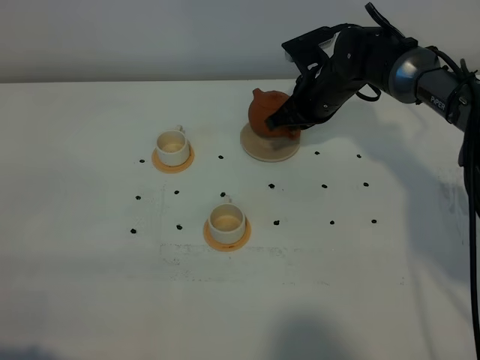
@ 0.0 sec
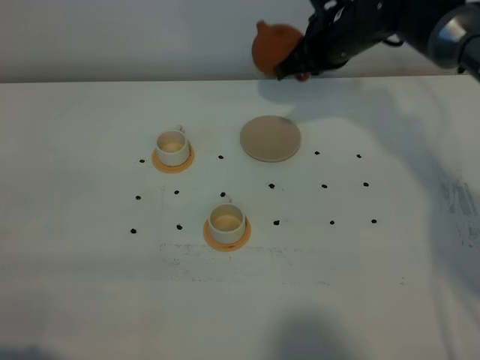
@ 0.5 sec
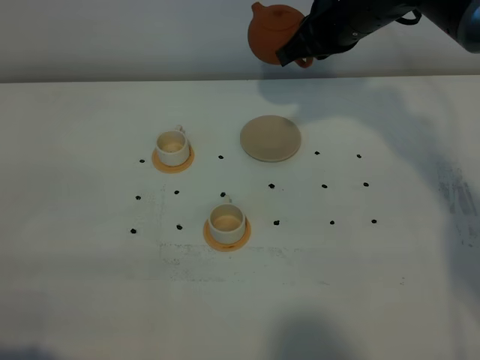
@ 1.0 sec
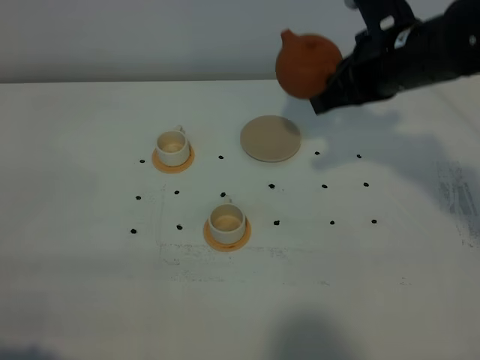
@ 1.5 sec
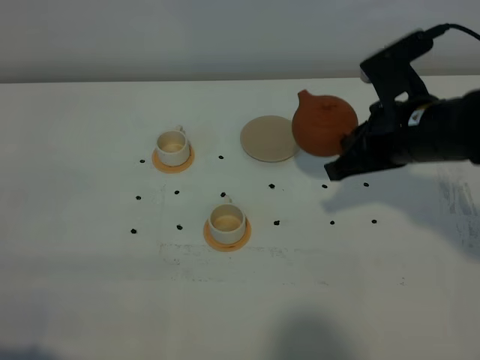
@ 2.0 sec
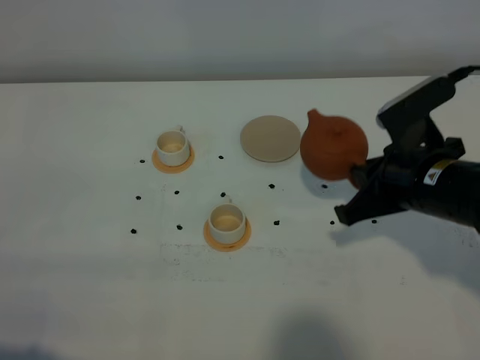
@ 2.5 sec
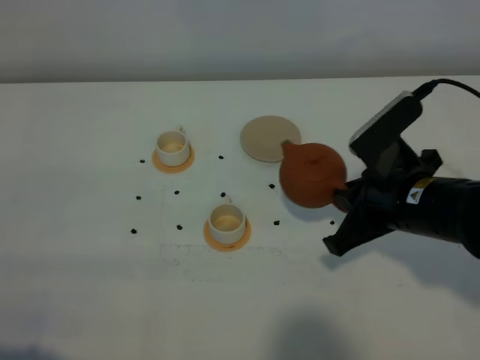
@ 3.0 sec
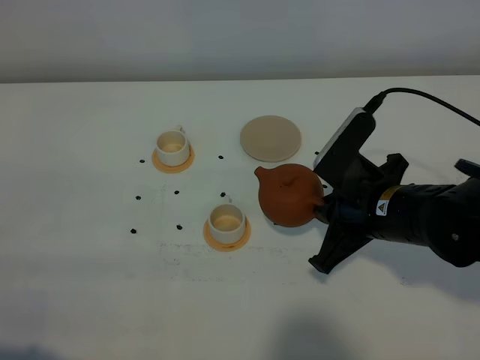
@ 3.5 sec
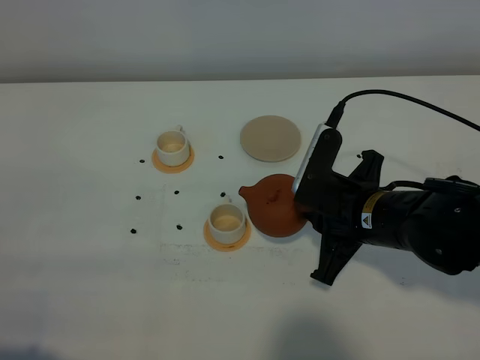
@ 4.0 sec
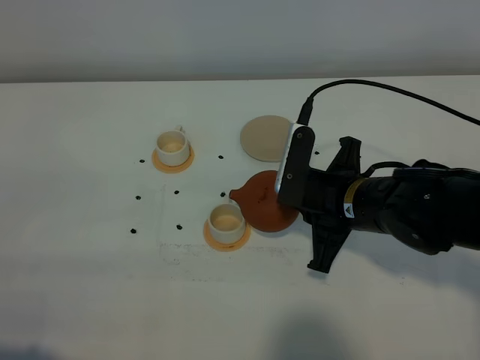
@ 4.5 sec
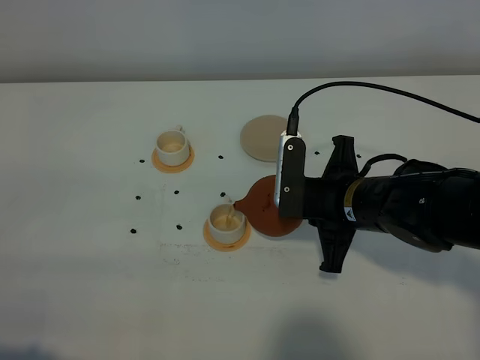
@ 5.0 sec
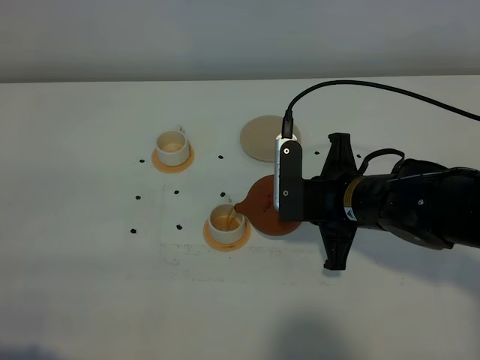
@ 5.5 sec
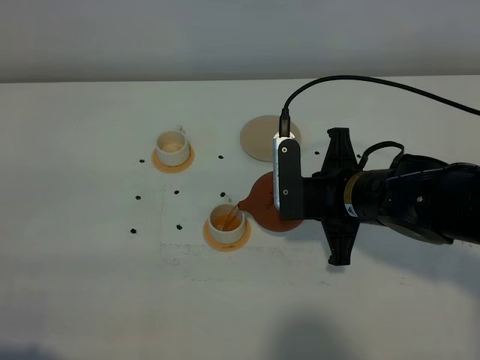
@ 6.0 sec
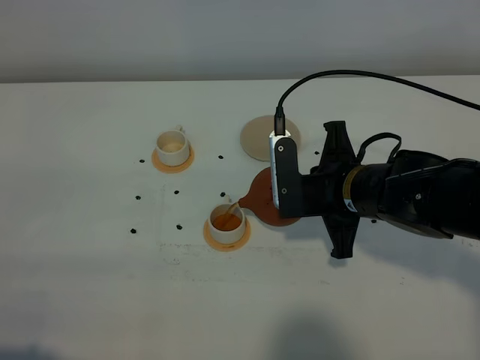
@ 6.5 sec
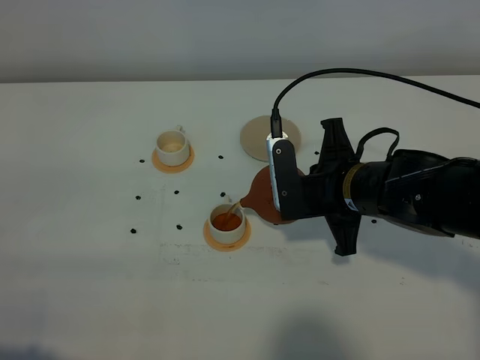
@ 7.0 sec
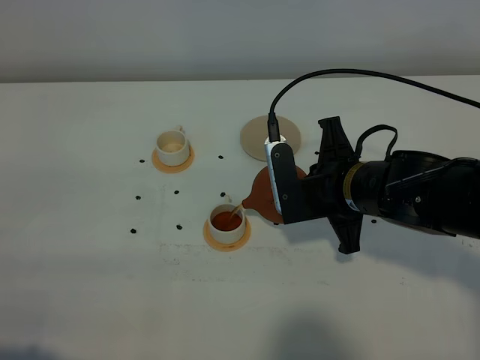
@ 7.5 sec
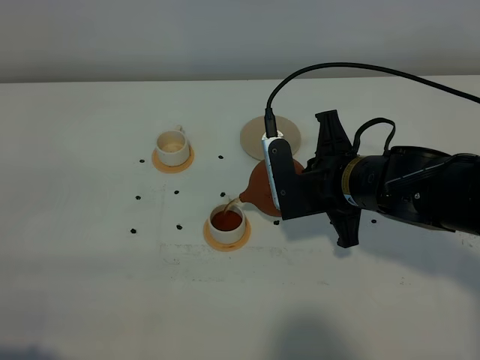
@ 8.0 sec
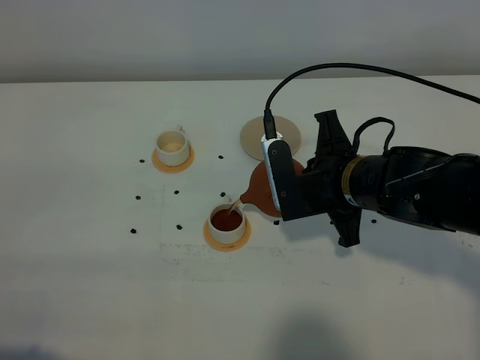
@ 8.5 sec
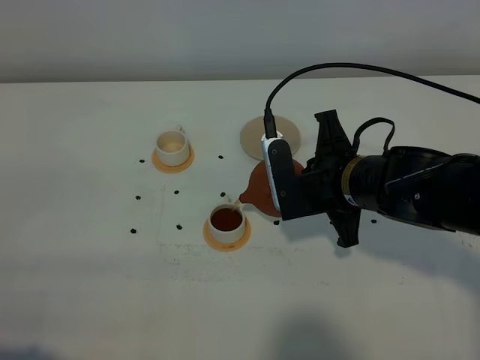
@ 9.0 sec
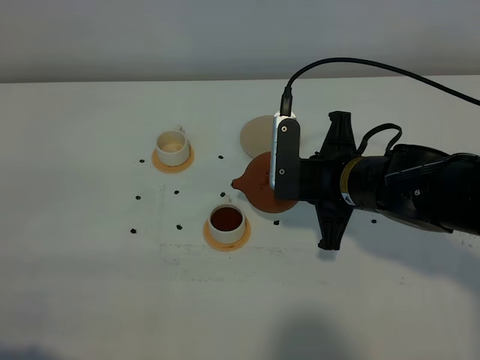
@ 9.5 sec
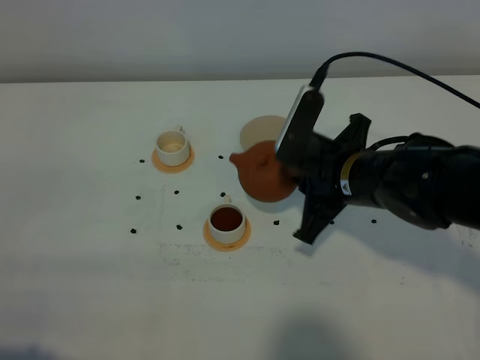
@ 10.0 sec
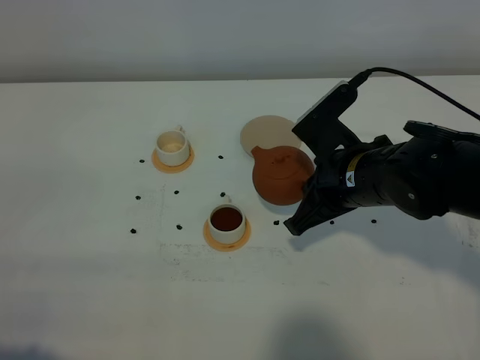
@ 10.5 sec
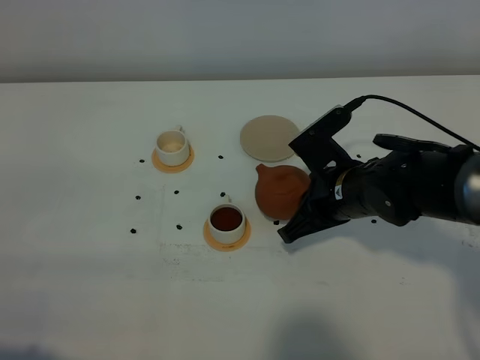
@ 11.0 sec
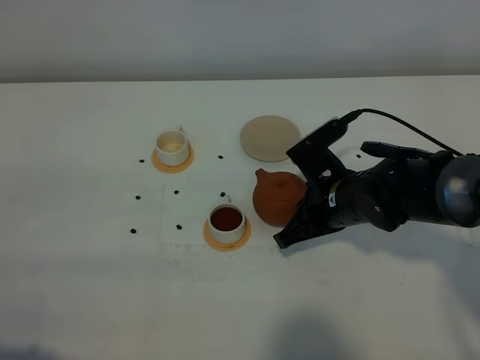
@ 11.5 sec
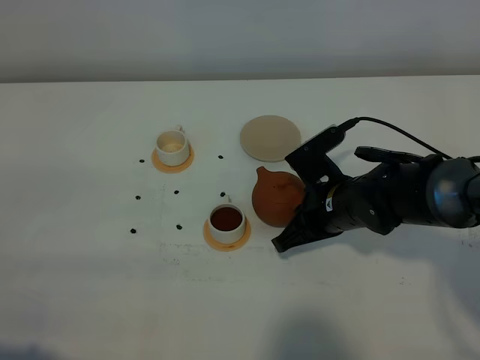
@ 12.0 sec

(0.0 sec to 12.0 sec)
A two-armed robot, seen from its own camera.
Task of the whole recording: grasp the brown teapot and pour the tea into the two white teacups one by one, put the brown teapot back in its original place.
Step, 0.5 sec - 10.0 sec: Pour tea into the teacup with the right gripper.
0.0 sec - 2.0 sec: The right gripper is displaced backward, upward and to the right by approximately 20 cm.
2.0 sec - 4.0 sec: The right gripper heads downward and backward, covering about 10 cm.
6.0 sec - 8.0 sec: The grippers stay close to where they were, moving slightly.
10.0 sec - 12.0 sec: The right gripper is displaced downward by some 10 cm.

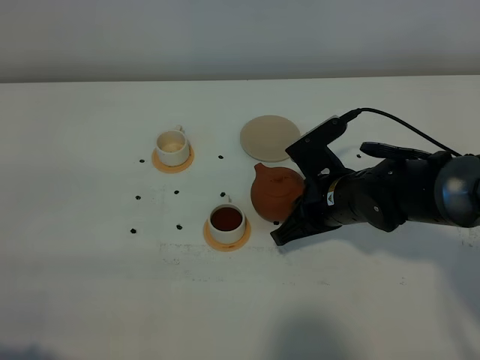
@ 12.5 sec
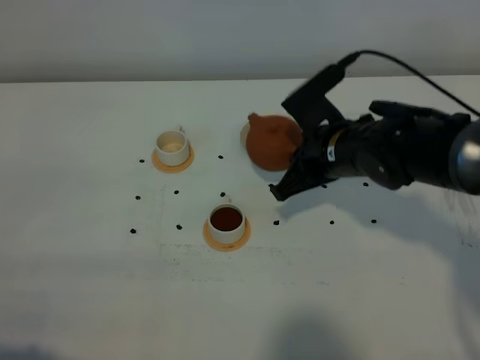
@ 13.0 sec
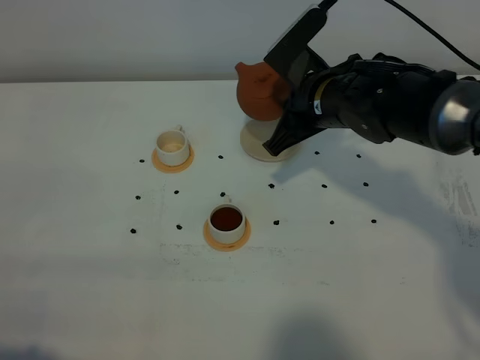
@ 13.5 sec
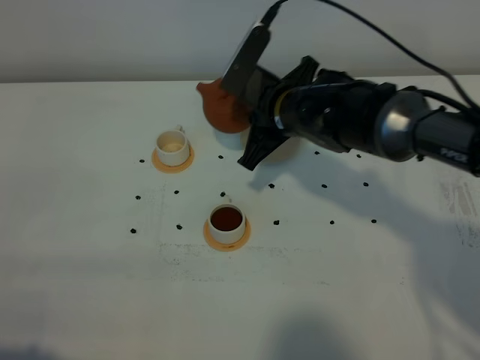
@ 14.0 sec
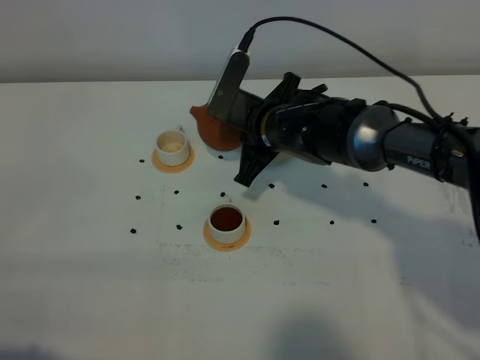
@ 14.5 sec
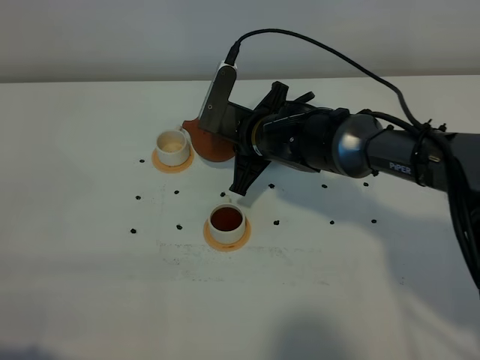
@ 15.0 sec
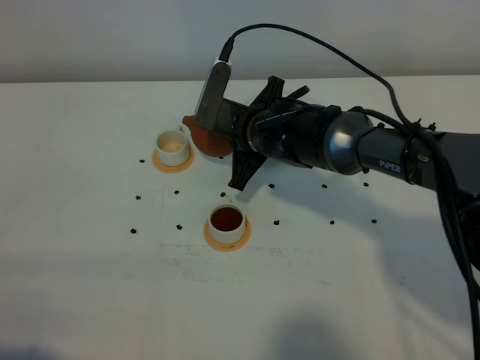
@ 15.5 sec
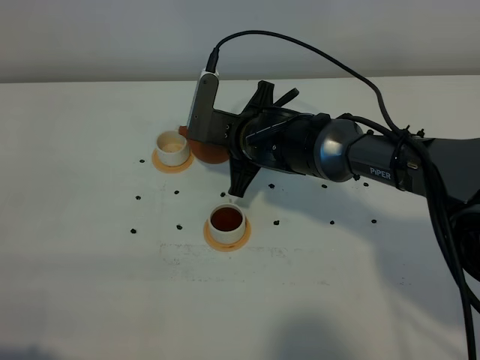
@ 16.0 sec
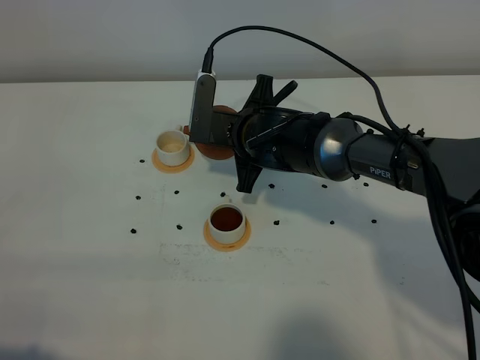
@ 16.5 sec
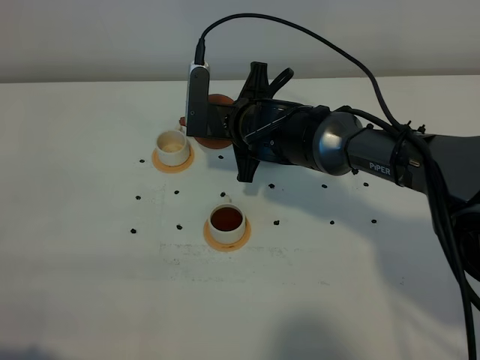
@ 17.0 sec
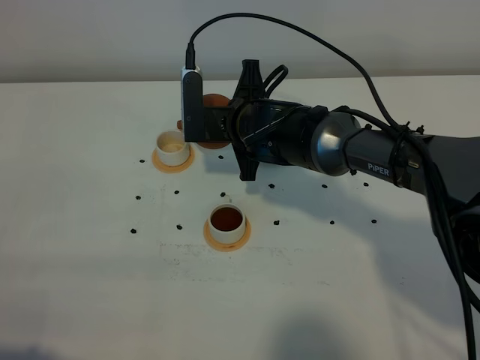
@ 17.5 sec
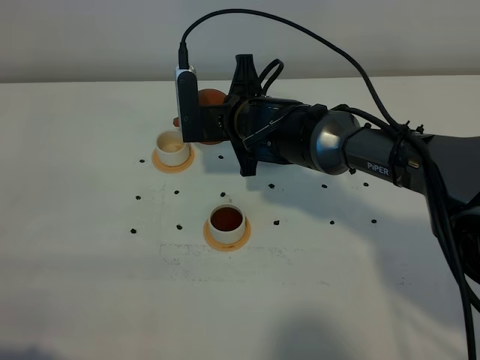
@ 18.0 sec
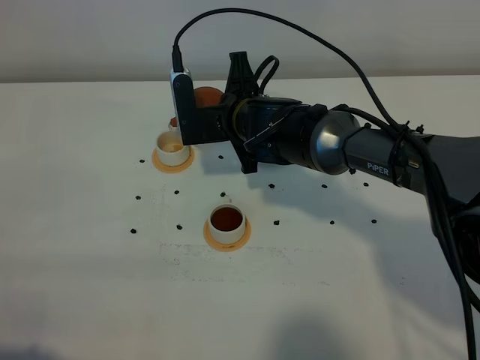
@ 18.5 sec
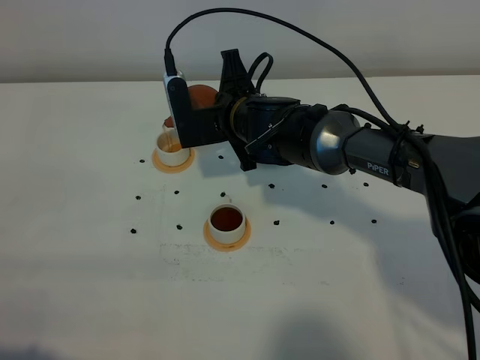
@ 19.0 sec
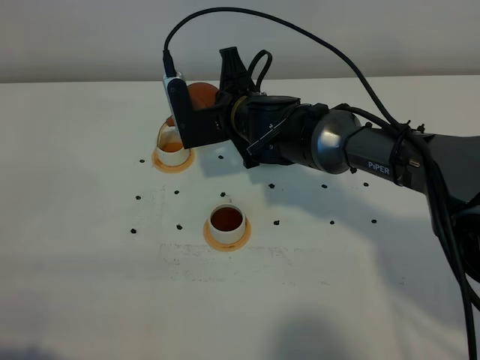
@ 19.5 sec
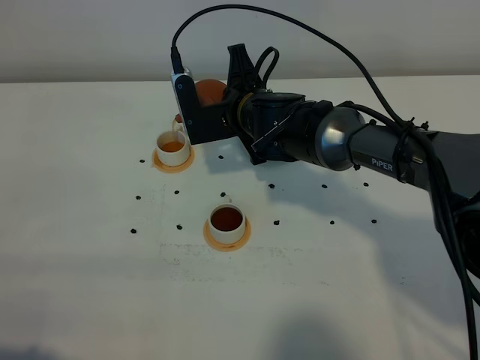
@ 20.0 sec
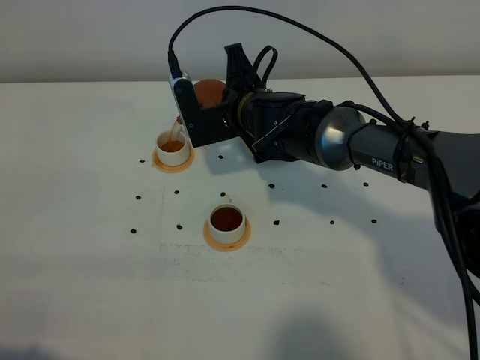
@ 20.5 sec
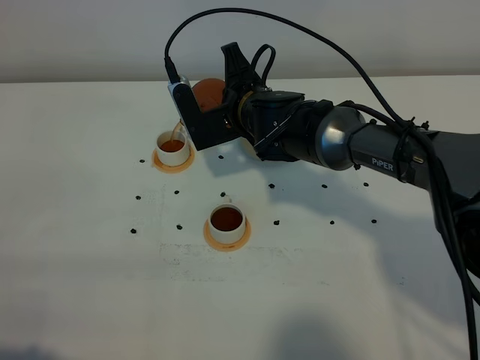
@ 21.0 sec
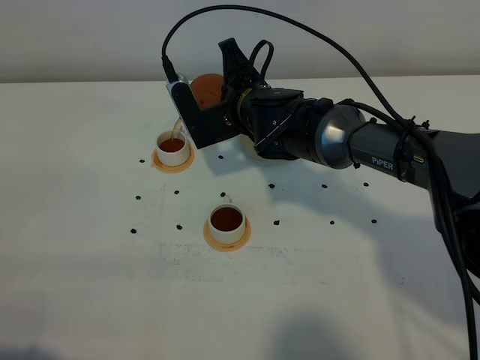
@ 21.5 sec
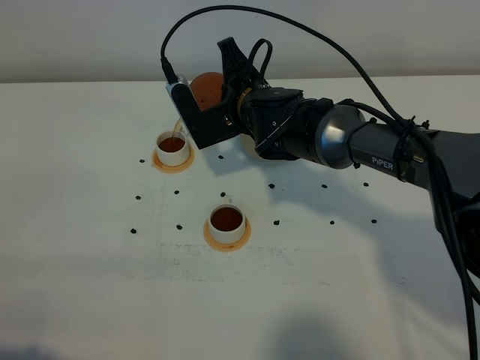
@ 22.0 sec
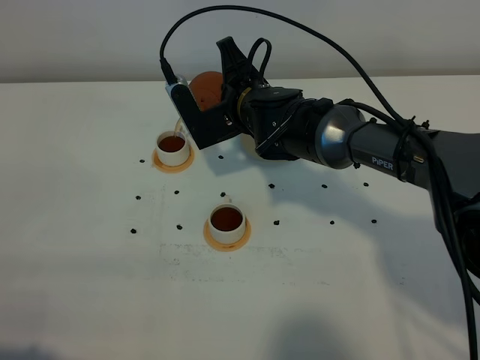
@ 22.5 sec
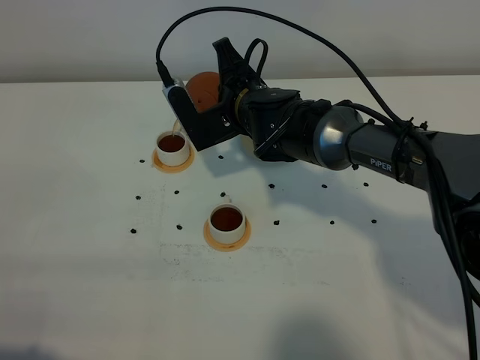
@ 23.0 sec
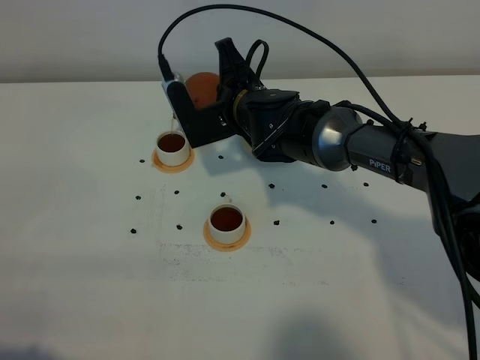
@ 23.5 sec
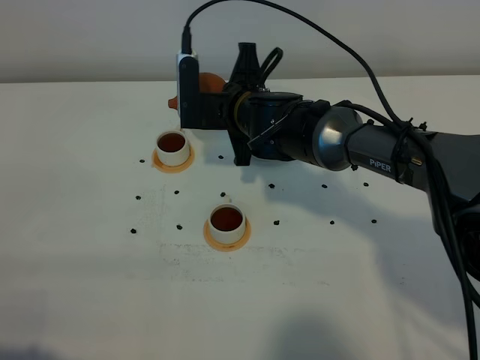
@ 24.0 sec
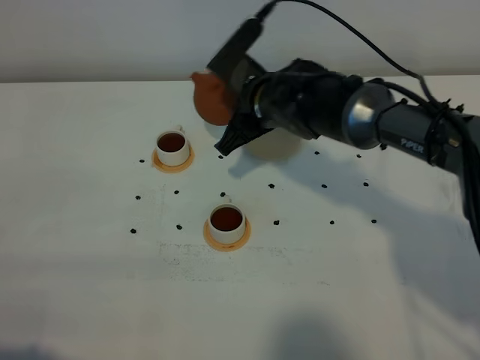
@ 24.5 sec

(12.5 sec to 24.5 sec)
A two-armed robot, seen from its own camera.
Task of the whole recording: grasp the brown teapot and pour the tea into the two white teacups one by one, put the brown teapot back in its original place.
Step, 12.5 sec - 24.0 sec: Pour tea into the teacup with the right gripper.
12.5 sec - 14.5 sec: The right gripper goes approximately 10 cm to the left and forward.
14.5 sec - 16.5 sec: There are only small adjustments of the grippers.
16.5 sec - 18.5 sec: The grippers move only a little.
18.5 sec - 22.5 sec: There are only small adjustments of the grippers.

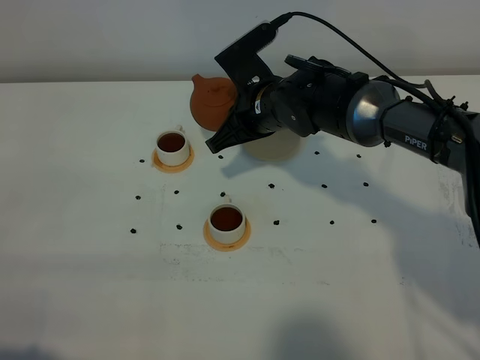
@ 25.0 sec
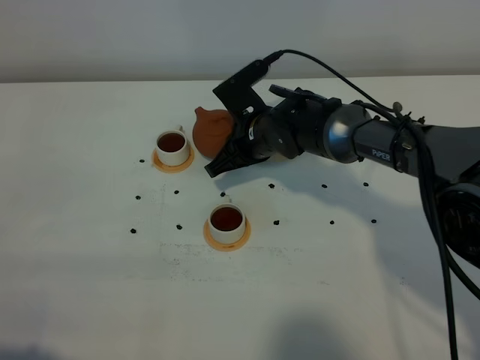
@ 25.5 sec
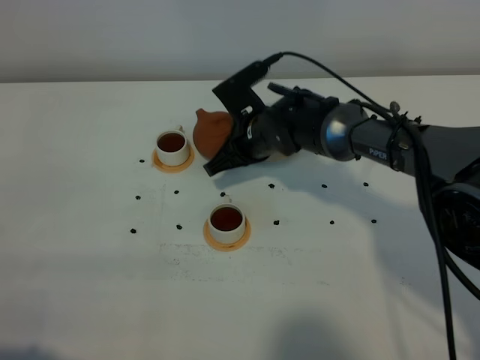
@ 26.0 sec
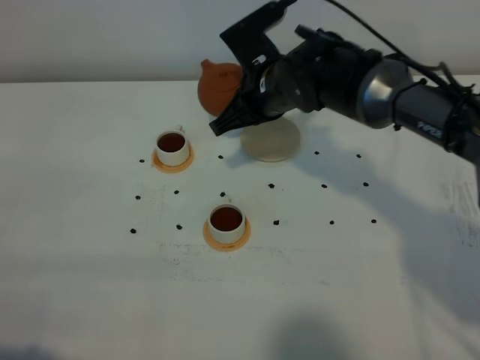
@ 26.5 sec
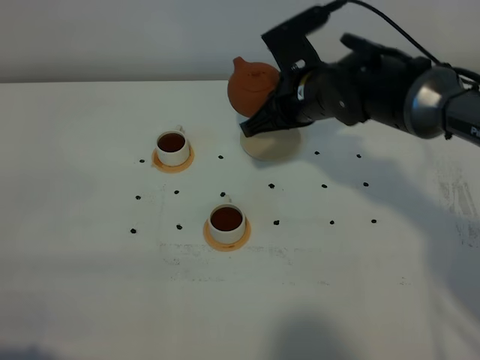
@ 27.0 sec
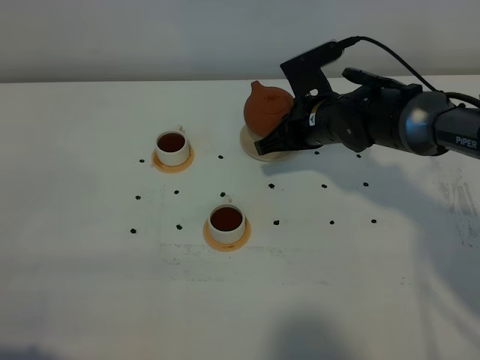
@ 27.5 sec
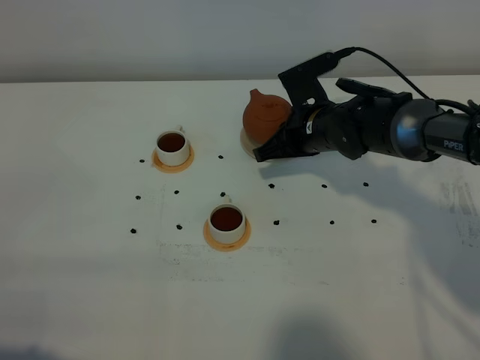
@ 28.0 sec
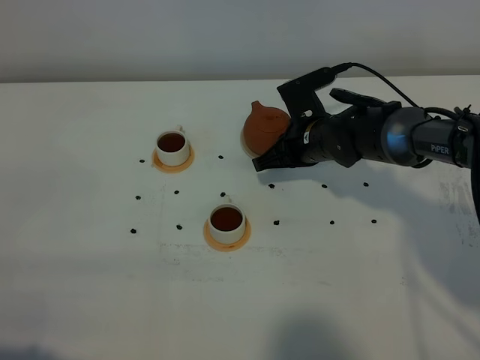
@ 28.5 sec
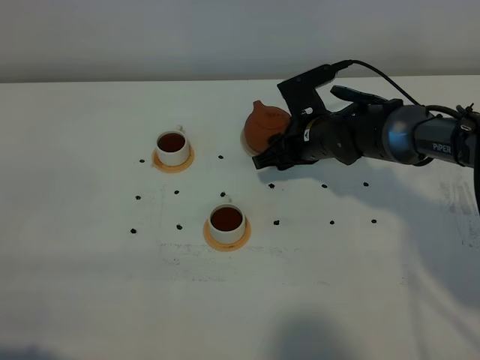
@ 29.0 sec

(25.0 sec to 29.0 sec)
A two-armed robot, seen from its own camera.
Task of the whole recording: grasp the brown teapot and pour the tea into the two white teacups one by one, put the brown teapot back in its original place.
25.0 sec - 27.0 sec: The right gripper goes about 5 cm to the right, and reaches approximately 5 cm downward, then returns.
27.0 sec - 29.0 sec: The right gripper moves downward, about 10 cm, and opens its fingers.
